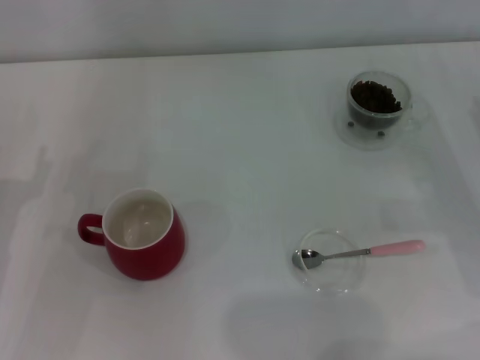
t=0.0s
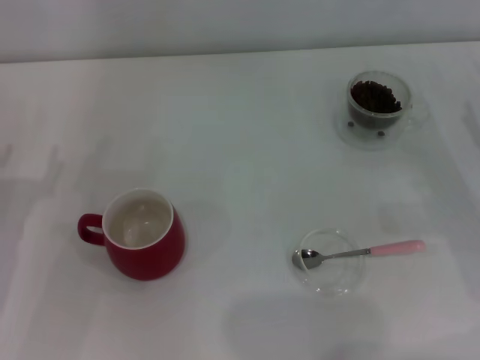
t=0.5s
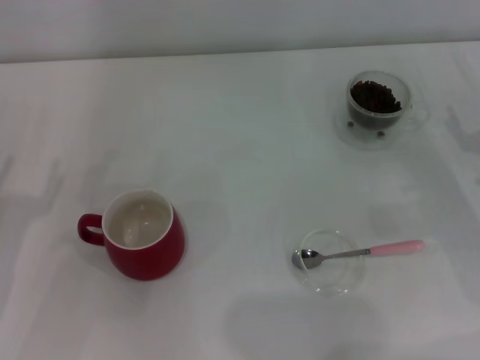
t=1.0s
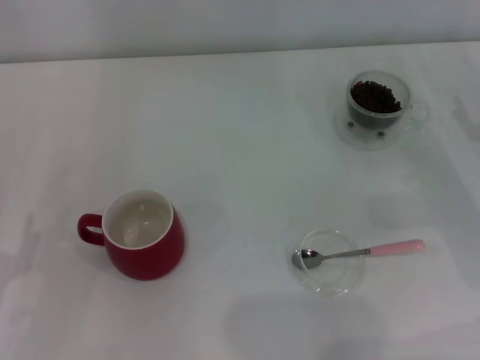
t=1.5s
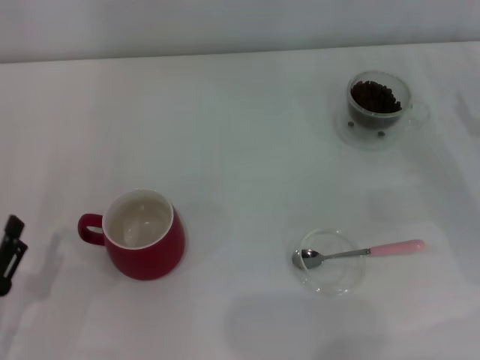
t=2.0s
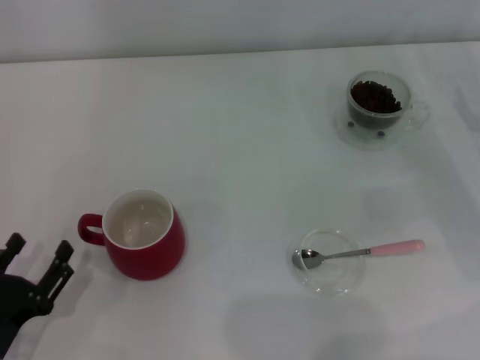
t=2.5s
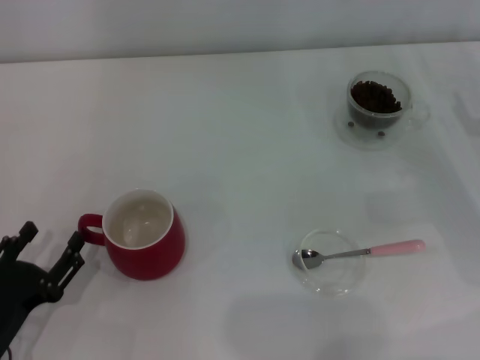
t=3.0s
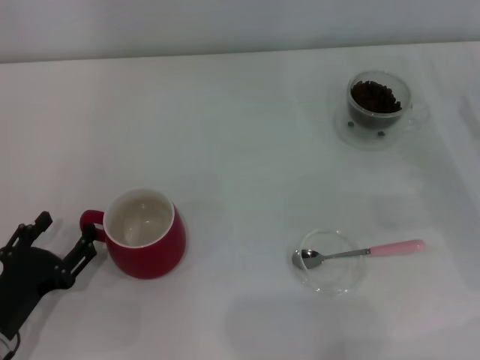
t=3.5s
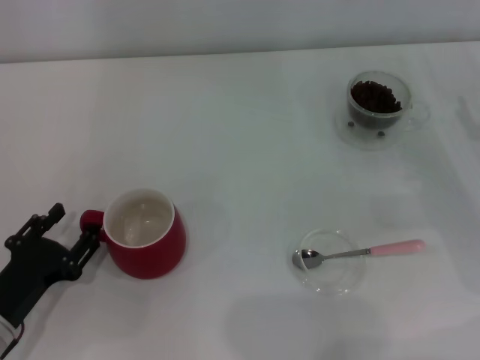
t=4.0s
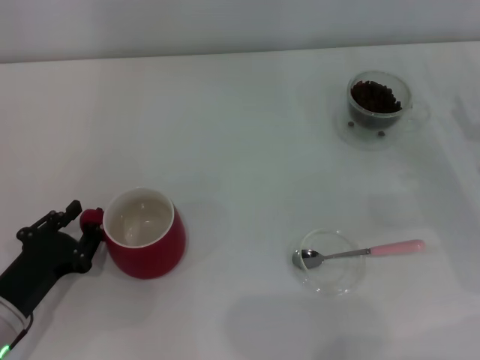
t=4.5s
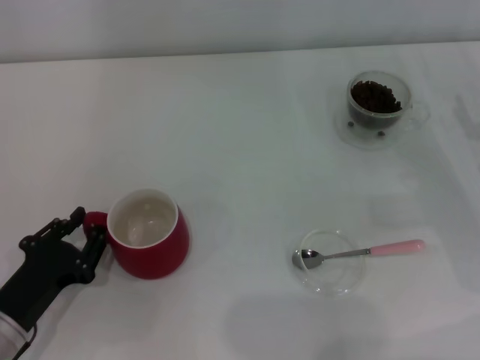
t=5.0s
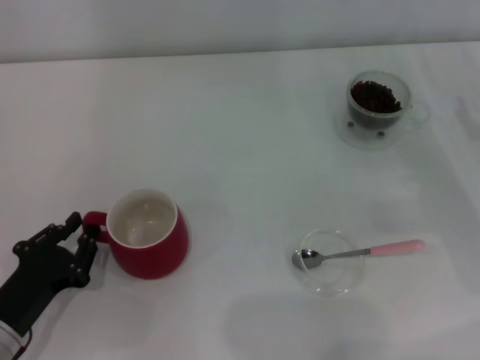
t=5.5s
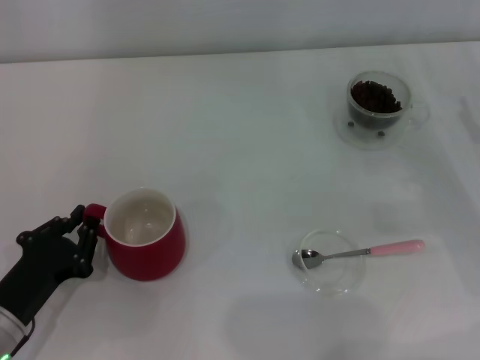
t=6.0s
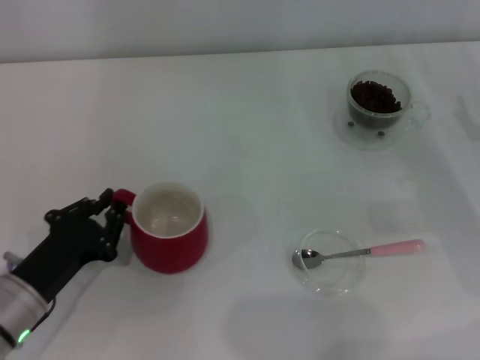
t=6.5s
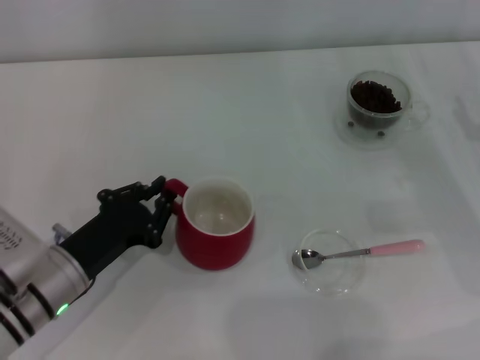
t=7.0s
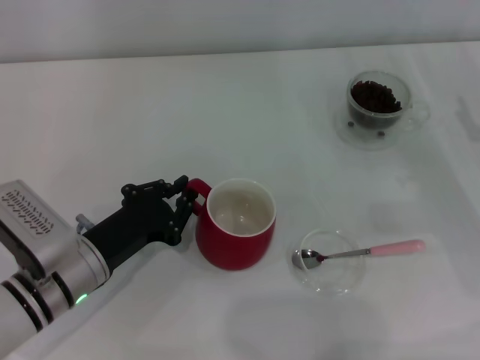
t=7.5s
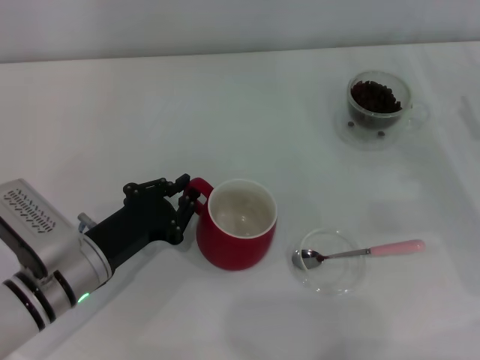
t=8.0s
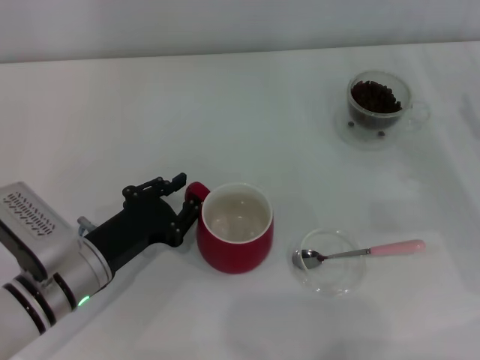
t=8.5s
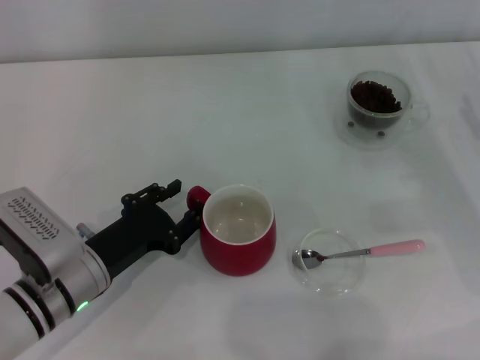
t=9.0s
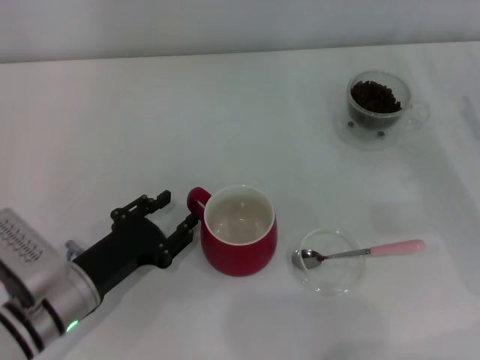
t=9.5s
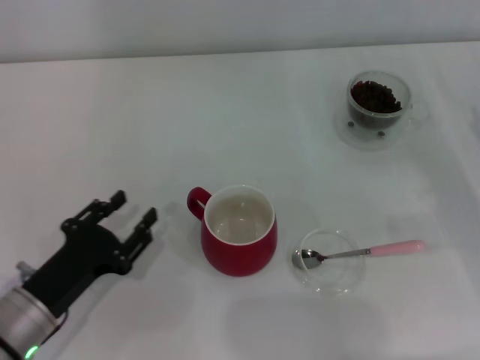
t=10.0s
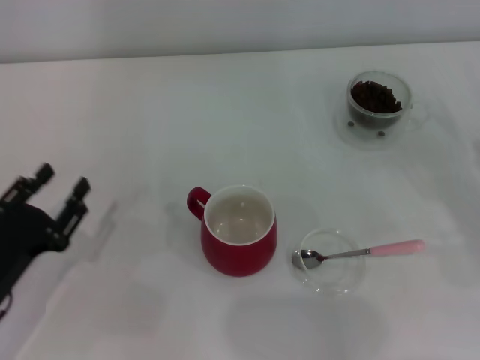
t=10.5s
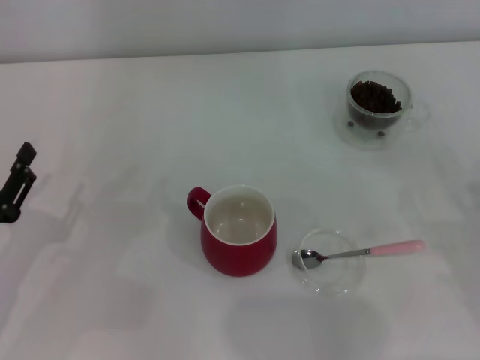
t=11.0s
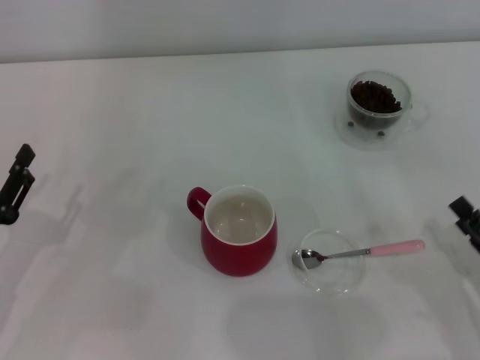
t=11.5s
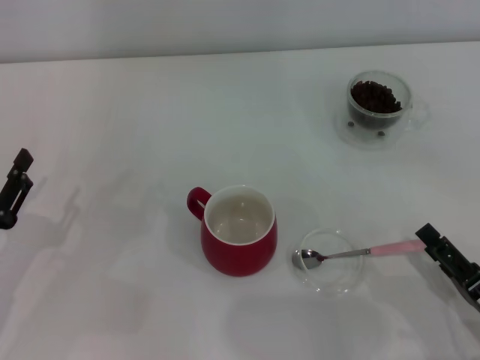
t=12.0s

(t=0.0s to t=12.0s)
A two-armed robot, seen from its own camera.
Task of the whole recording: Use a pink spoon to take out the coffee beans from the glass and pour them into the red cup.
Step, t=0.0s - t=9.5s: Move the cup to the center of view with the left gripper.
t=0.0s - t=2.0s: The left gripper shifts approximately 10 cm backward.
t=2.0s - t=4.0s: The left gripper goes approximately 5 cm forward.
t=4.0s - t=6.0s: The left gripper closes its fingers.
t=6.0s - t=8.0s: The left gripper shifts approximately 10 cm to the right and forward.
t=8.0s - t=10.0s: The left gripper goes about 5 cm backward, and opens its fingers.
t=10.0s - t=12.0s: The right gripper is displaced backward, to the left and downward by some 20 cm. The left gripper travels to the left by approximately 5 cm.

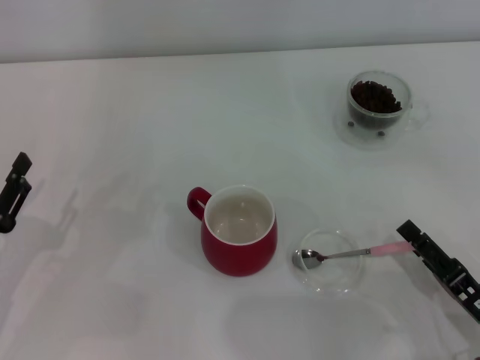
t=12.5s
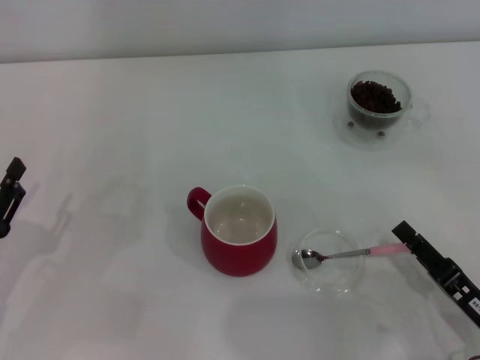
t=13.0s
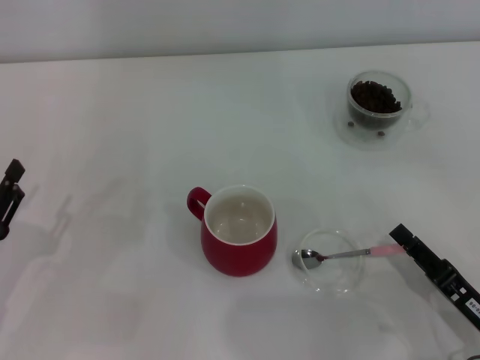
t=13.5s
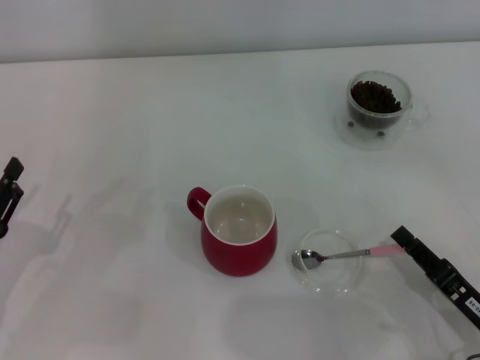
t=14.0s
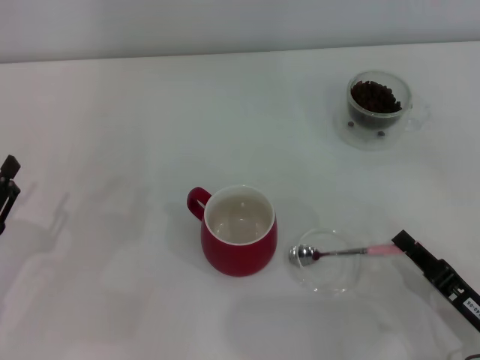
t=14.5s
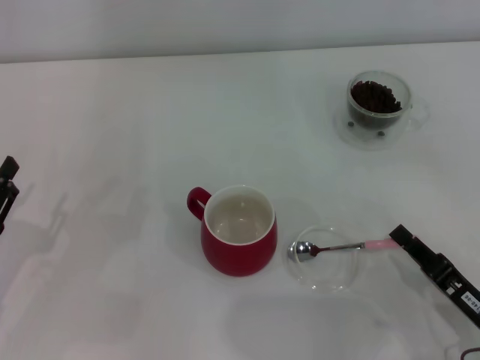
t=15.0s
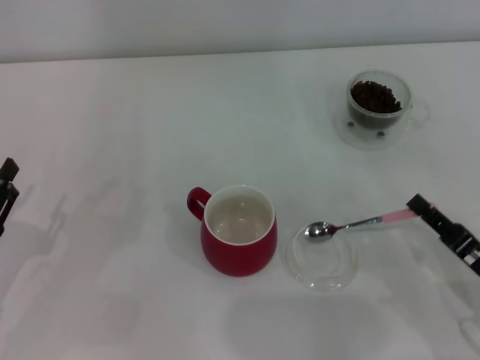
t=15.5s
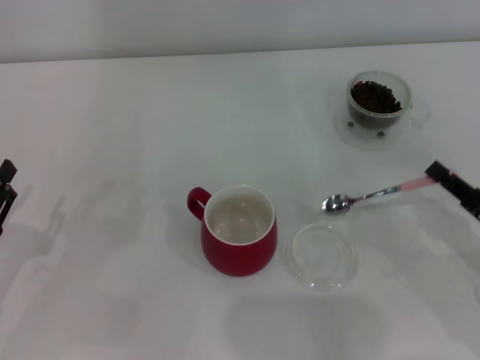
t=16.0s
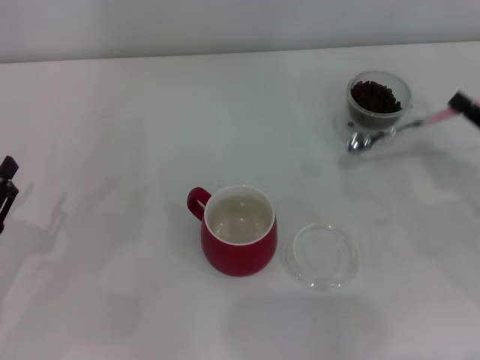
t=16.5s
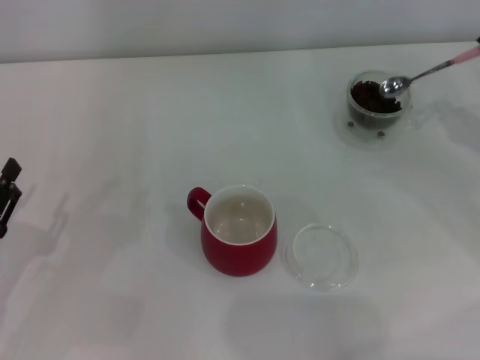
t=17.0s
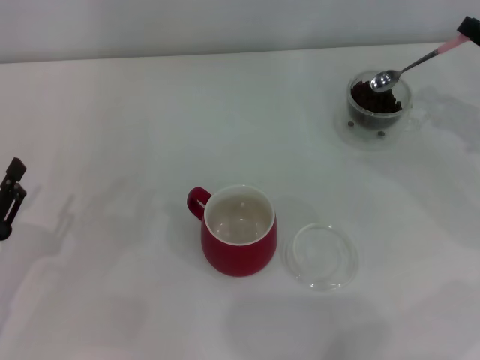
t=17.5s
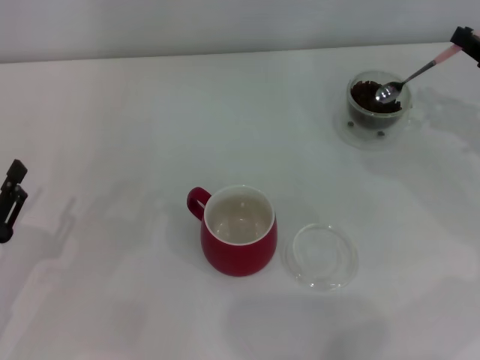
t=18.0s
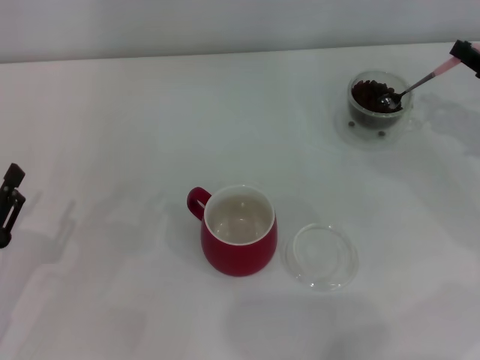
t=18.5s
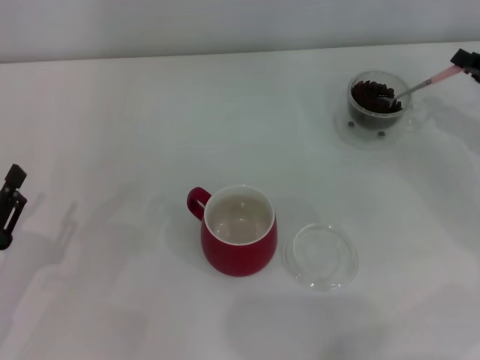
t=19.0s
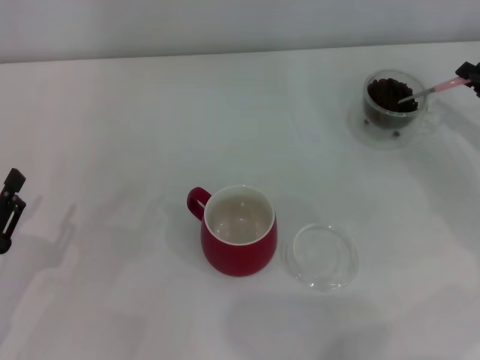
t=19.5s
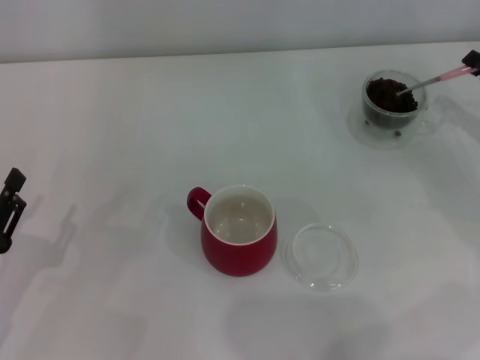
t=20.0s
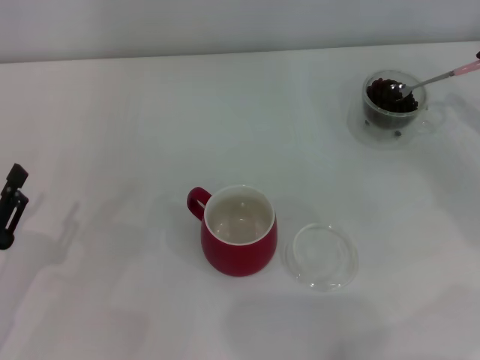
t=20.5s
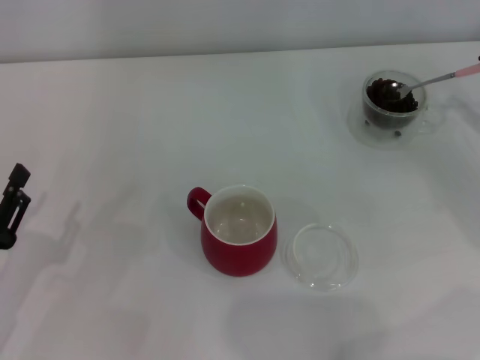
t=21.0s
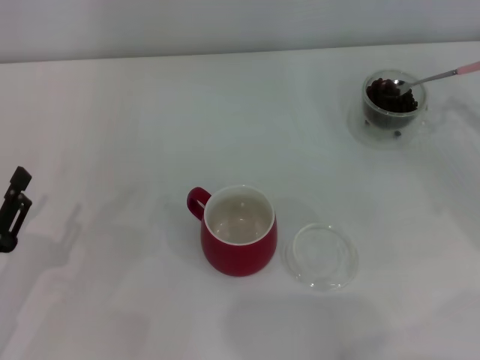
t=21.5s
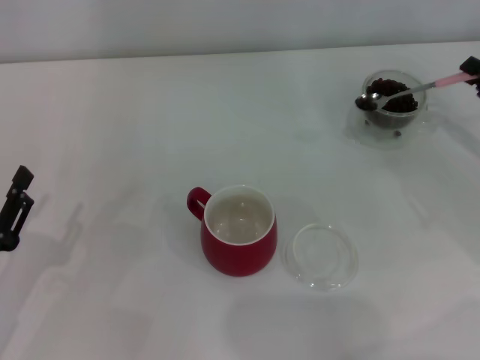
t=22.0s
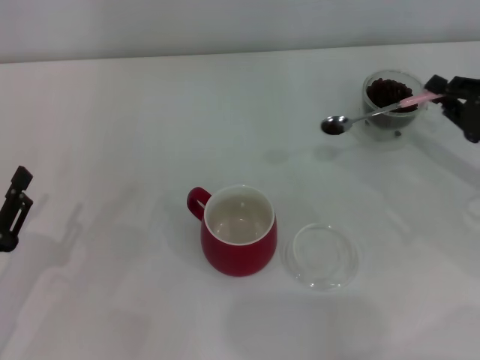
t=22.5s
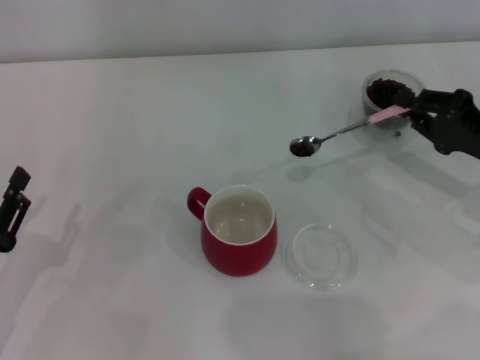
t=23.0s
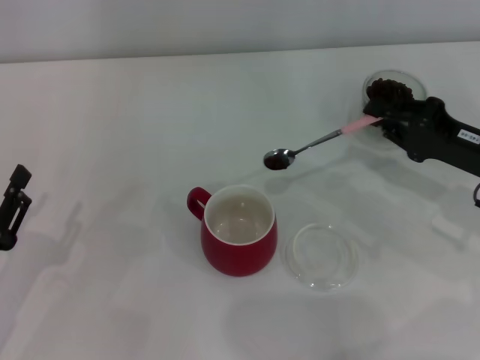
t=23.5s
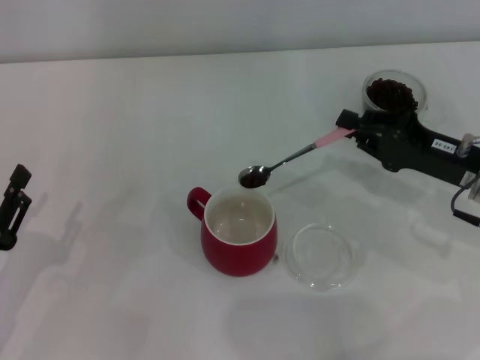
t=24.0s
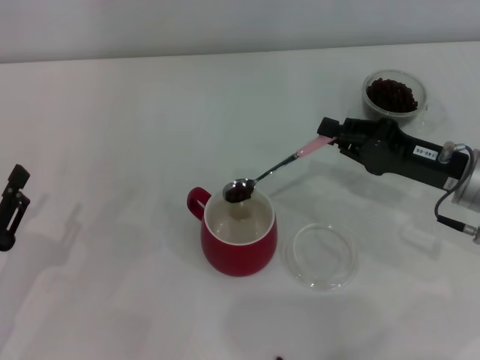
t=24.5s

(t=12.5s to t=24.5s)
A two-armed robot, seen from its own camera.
Task of the whole recording: Use a pink spoon to take out the coffee beans from the glass and pour them into the red cup.
Step, t=12.5s - t=15.5s: Pick up the spoon with the right gripper.
t=12.5s - t=14.5s: The right gripper closes up.
t=14.5s - t=16.5s: The right gripper travels forward, to the right and upward by approximately 15 cm.
t=16.5s - t=18.5s: The right gripper moves forward, roughly 10 cm.
t=20.5s - t=22.5s: The right gripper moves about 5 cm.
t=22.5s - t=24.5s: The right gripper shifts approximately 10 cm to the left.

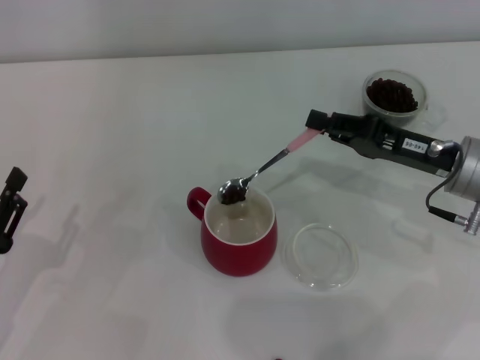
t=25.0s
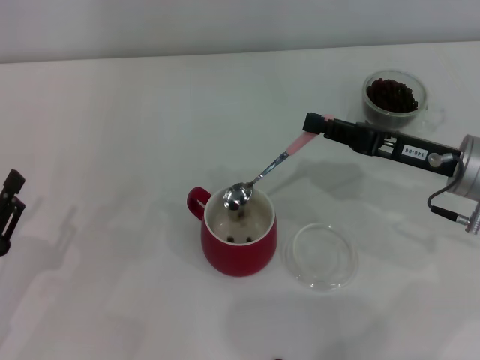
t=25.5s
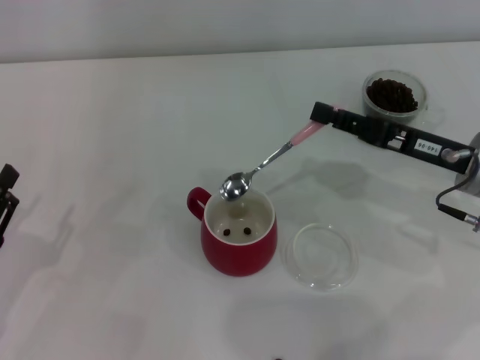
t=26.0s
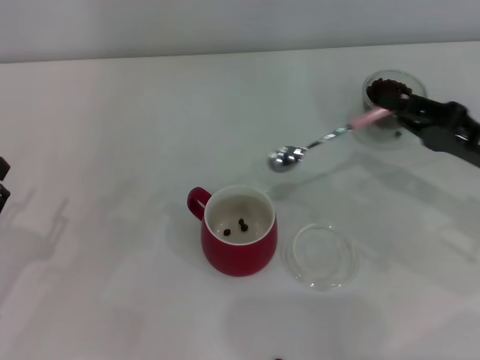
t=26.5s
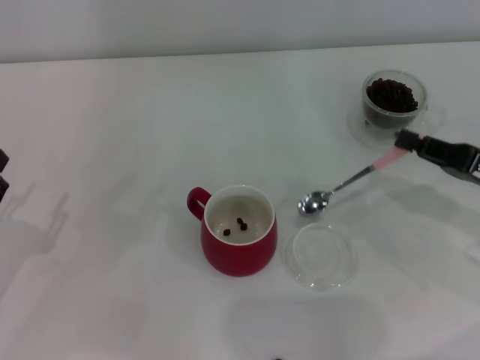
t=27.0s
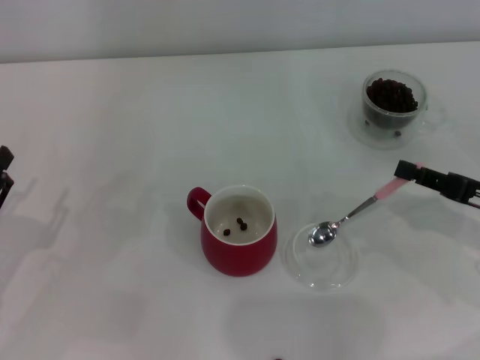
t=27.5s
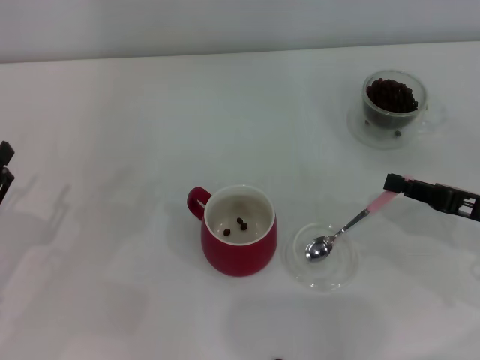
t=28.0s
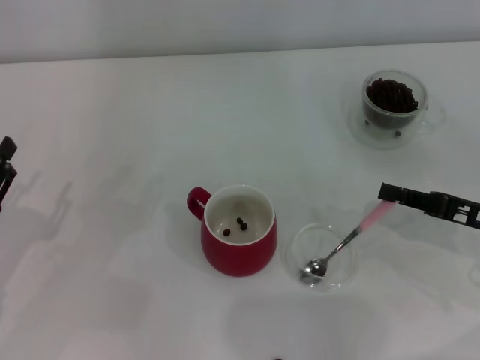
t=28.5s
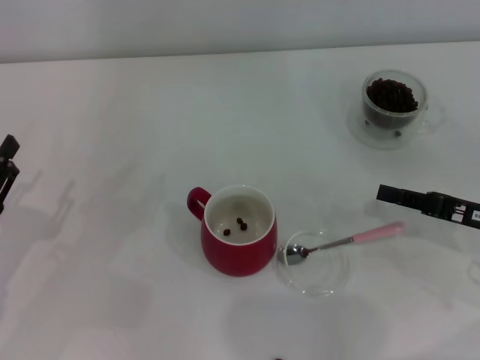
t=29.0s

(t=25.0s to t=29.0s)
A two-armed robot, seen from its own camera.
Task of the whole recording: Use a pink spoon to take out the coffee beans from the glass and pour them into the red cup.
Step, t=26.5s - t=29.0s: Place the spoon back in its original place with the right gripper.
t=25.0s - t=27.0s: The right gripper heads to the right and backward, covering some 10 cm.
t=27.0s - t=29.0s: The grippers stay close to where they were, moving slightly.
